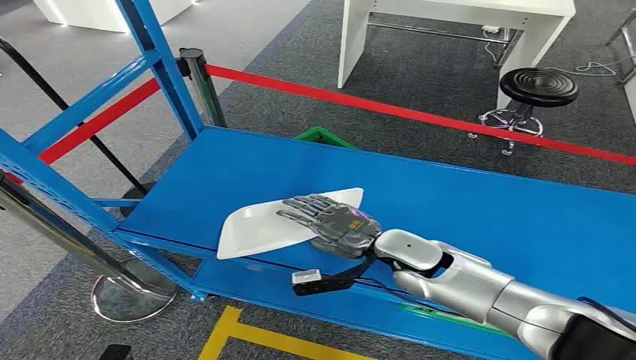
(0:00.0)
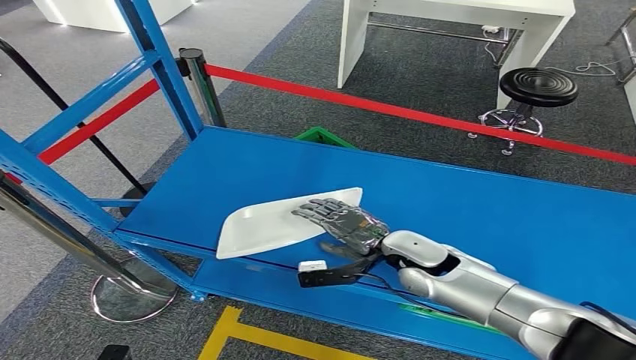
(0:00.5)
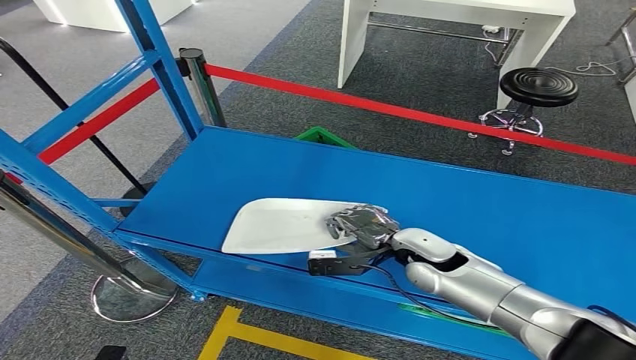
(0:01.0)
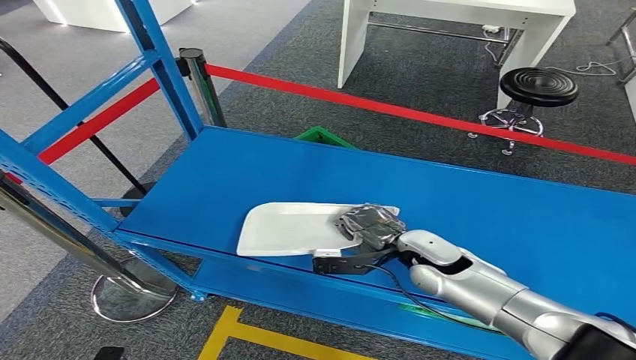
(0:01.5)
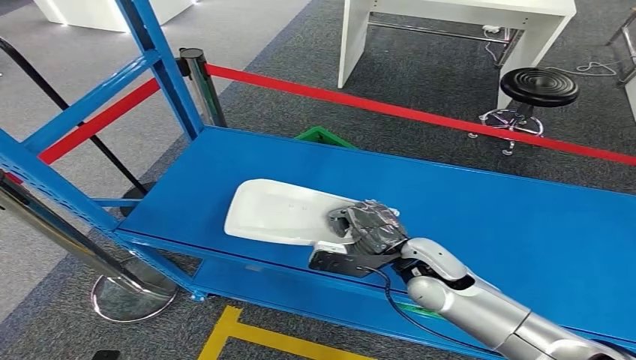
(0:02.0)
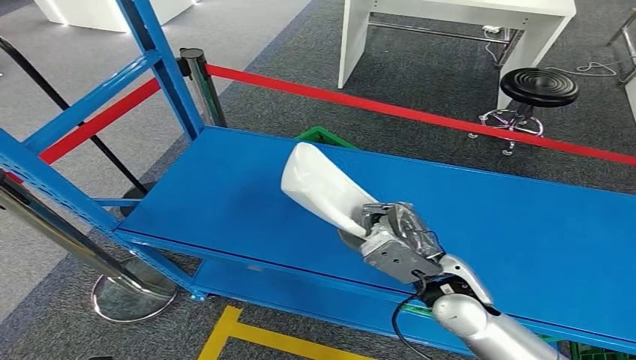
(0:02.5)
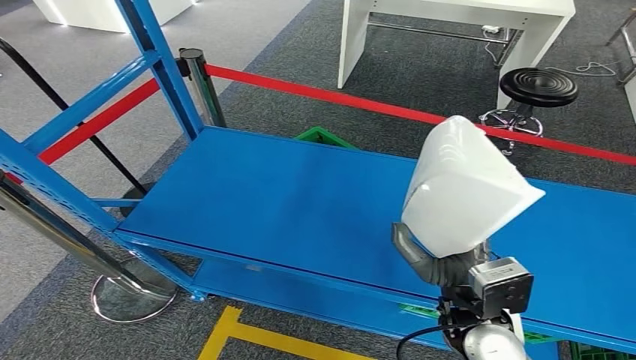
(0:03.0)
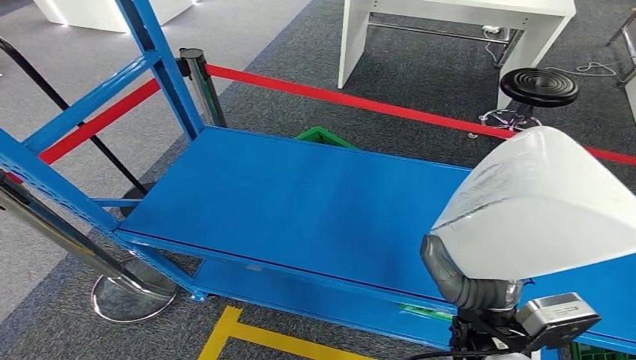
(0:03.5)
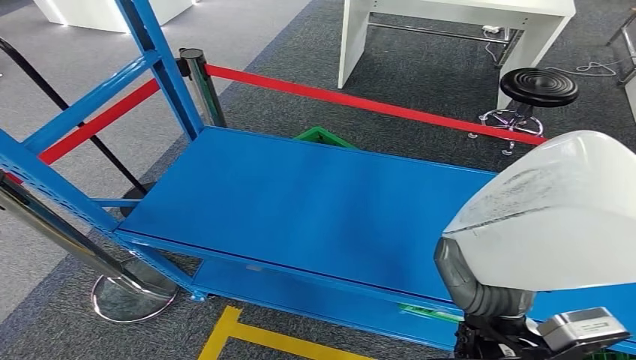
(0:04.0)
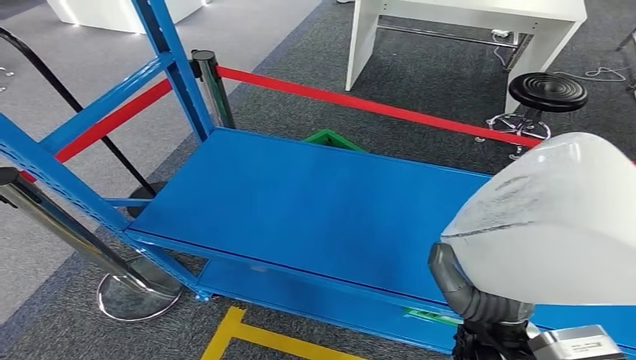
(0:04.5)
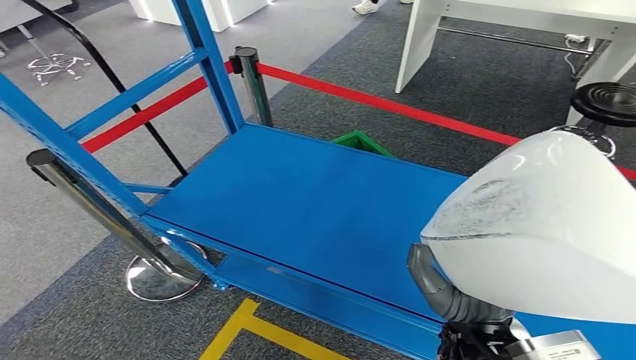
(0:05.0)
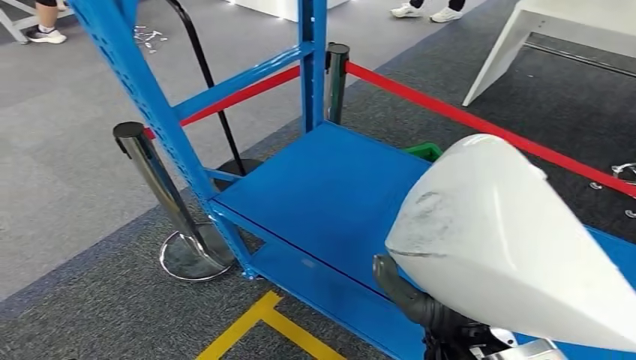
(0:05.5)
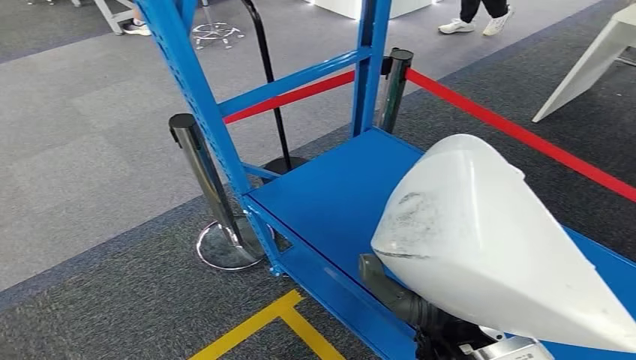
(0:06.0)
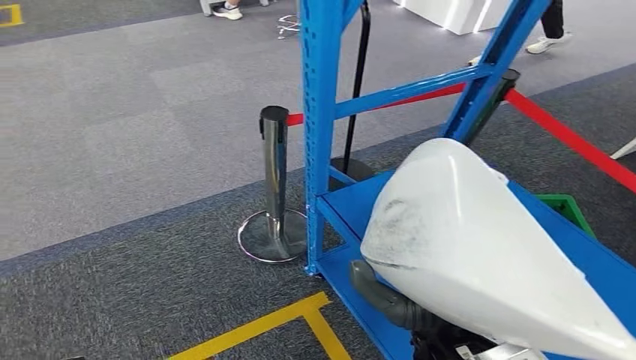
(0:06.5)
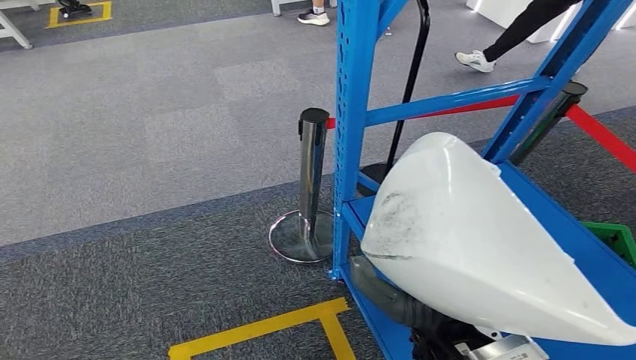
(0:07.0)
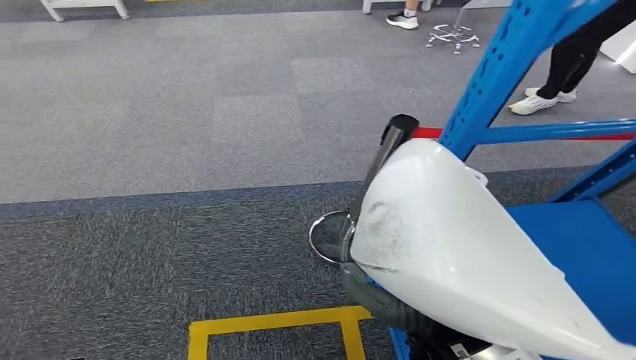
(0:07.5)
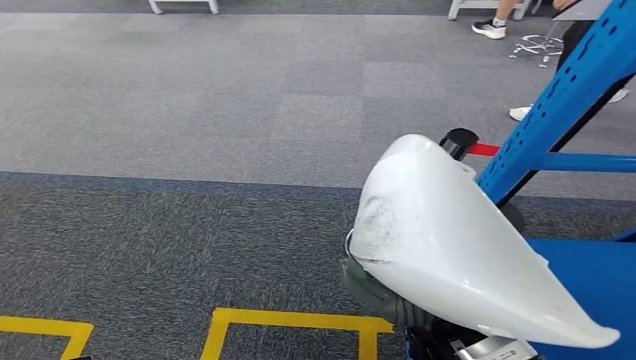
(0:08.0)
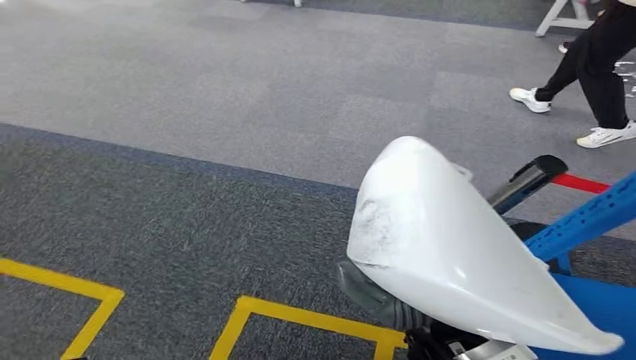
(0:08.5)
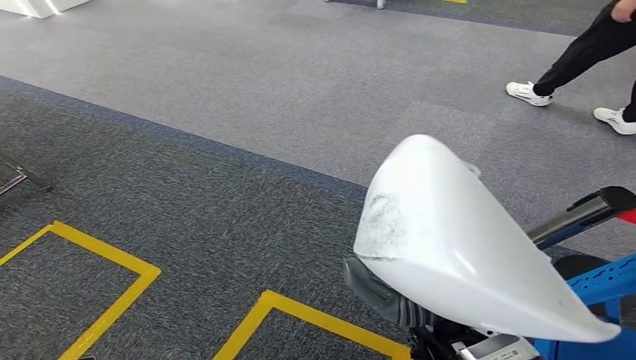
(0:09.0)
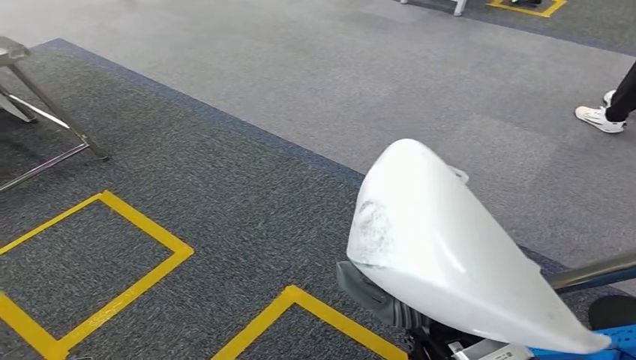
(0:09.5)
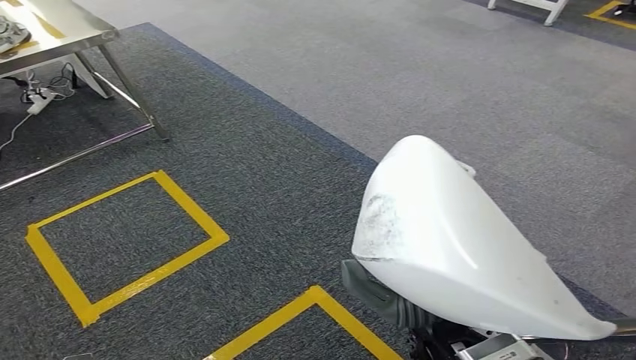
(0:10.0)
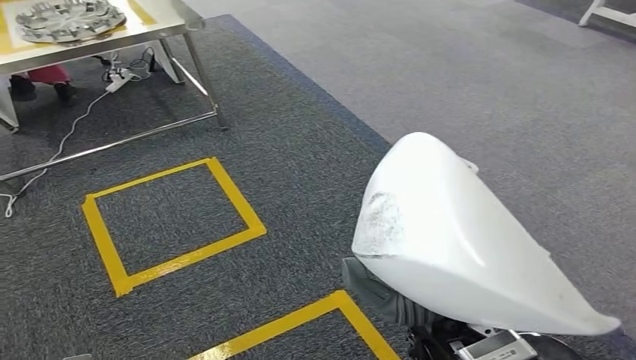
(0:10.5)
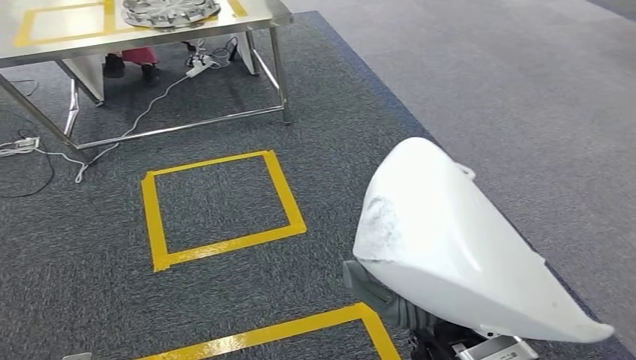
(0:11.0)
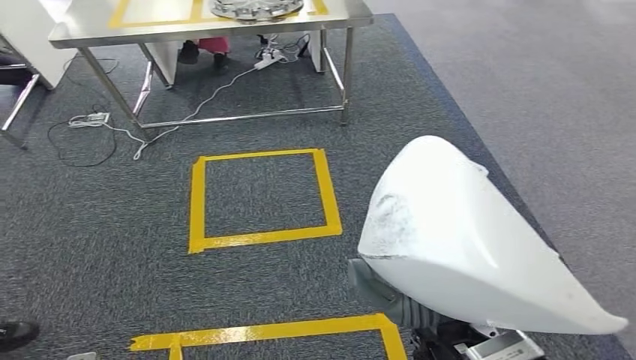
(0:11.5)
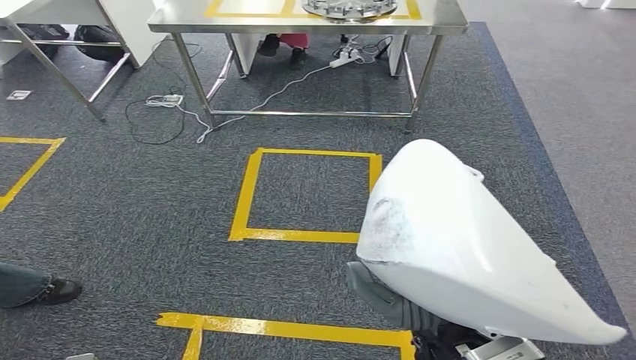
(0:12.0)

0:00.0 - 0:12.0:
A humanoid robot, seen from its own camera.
Step, 0:00.0 - 0:03.5: Pick up the small component from the shelf.

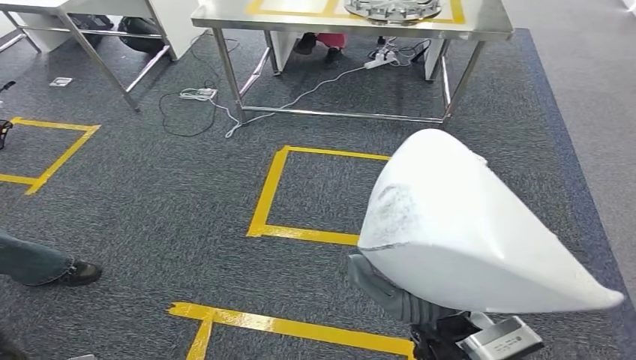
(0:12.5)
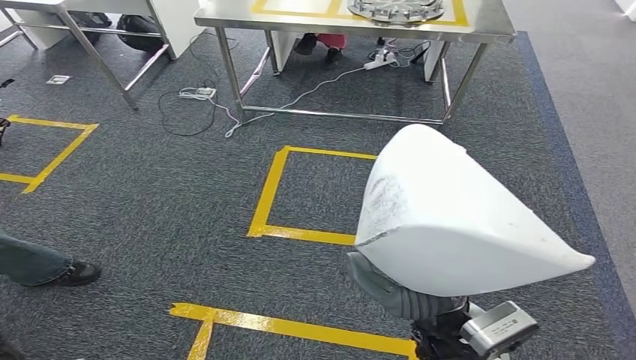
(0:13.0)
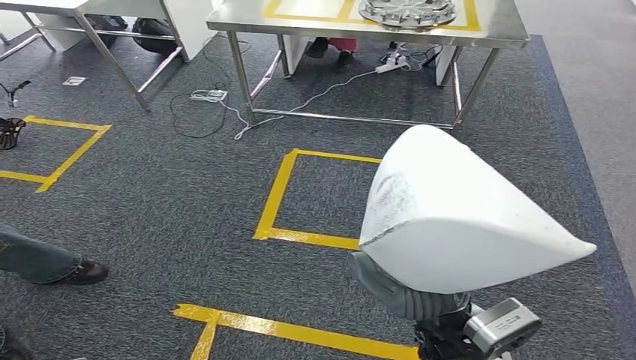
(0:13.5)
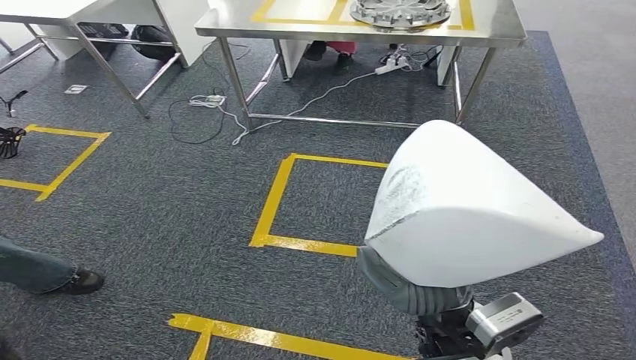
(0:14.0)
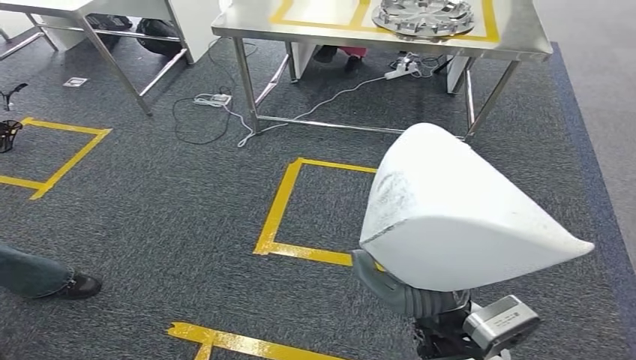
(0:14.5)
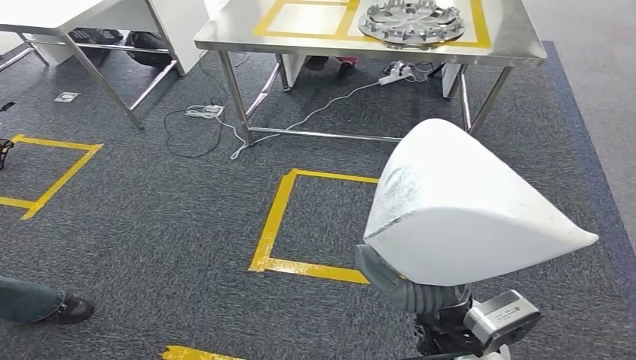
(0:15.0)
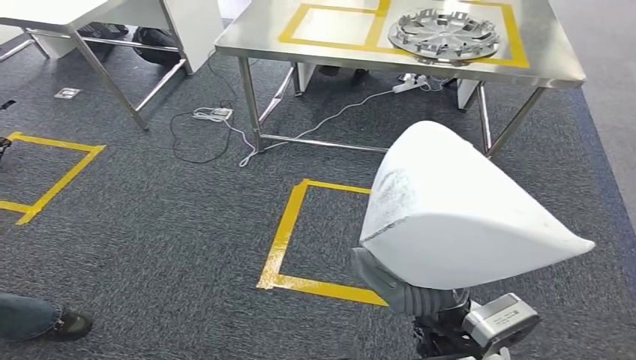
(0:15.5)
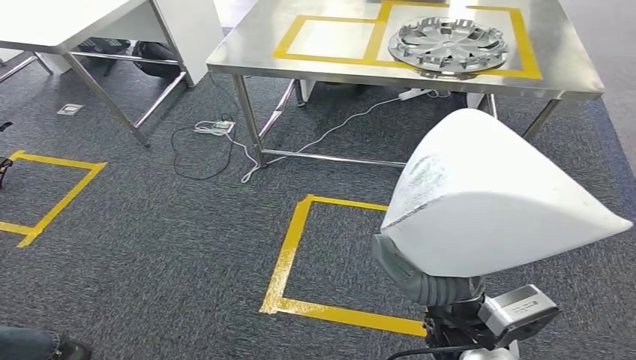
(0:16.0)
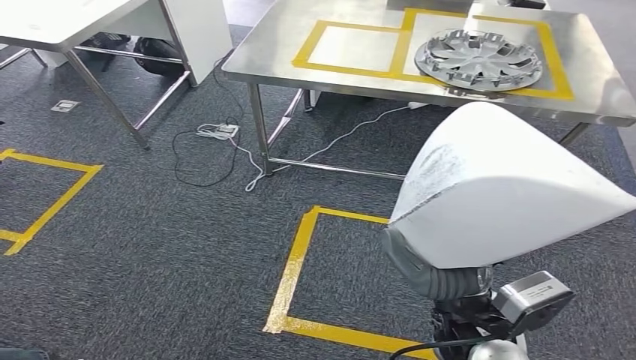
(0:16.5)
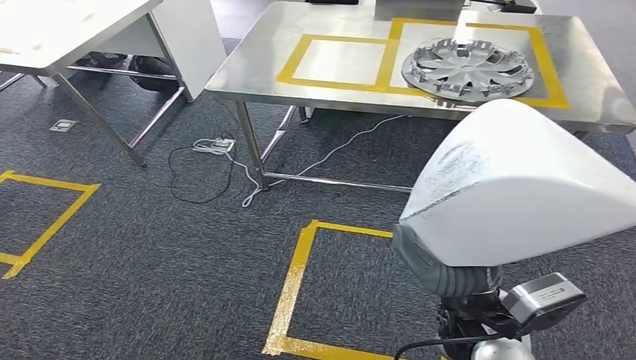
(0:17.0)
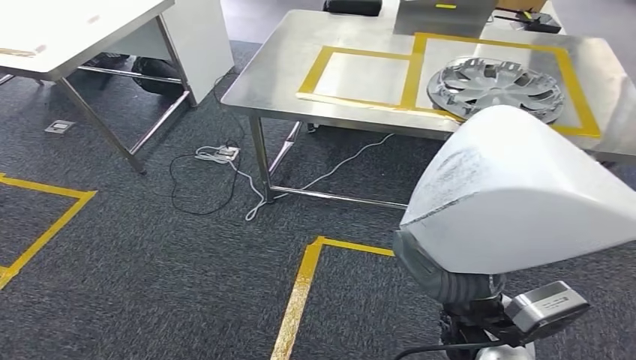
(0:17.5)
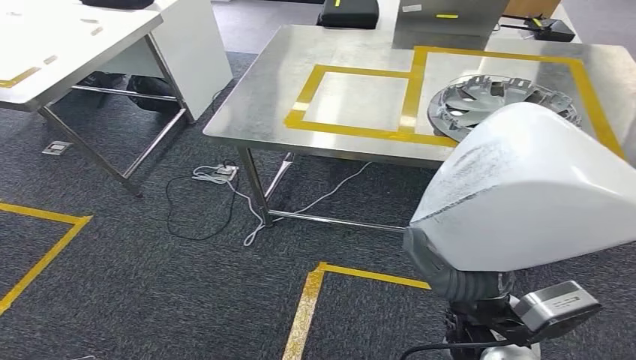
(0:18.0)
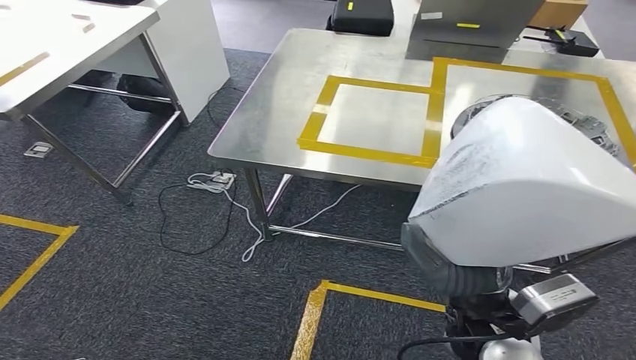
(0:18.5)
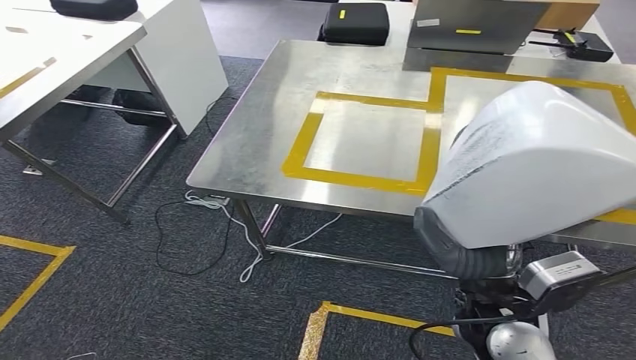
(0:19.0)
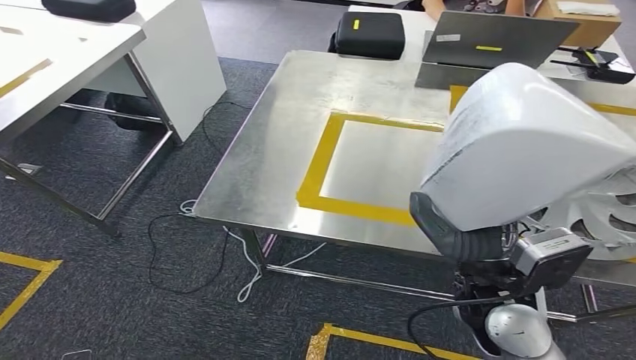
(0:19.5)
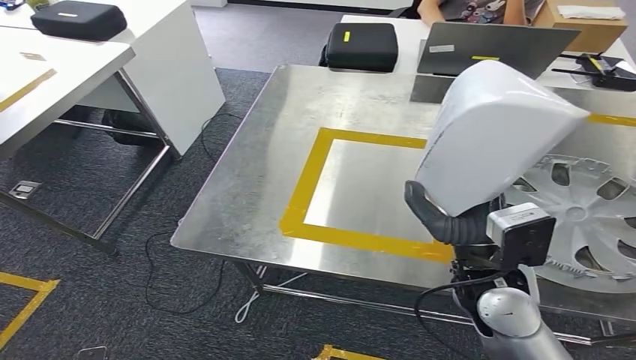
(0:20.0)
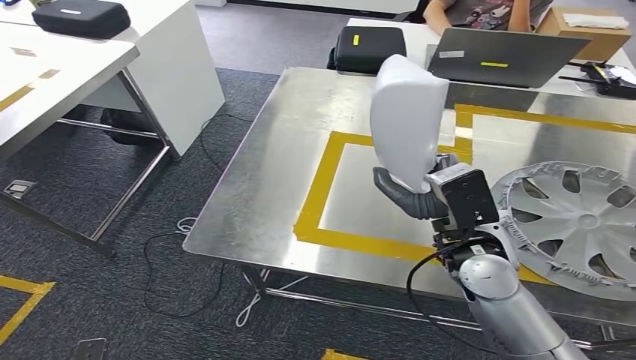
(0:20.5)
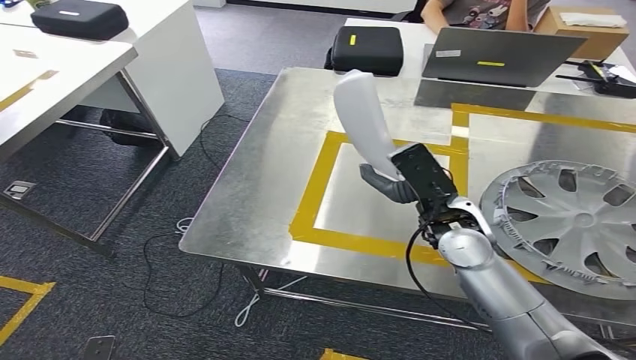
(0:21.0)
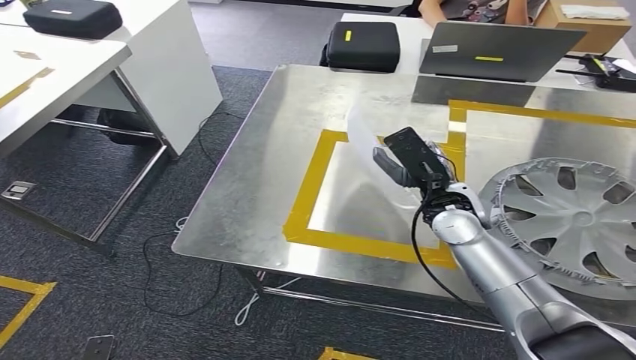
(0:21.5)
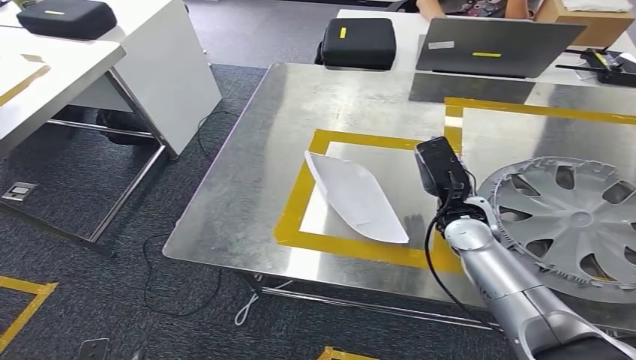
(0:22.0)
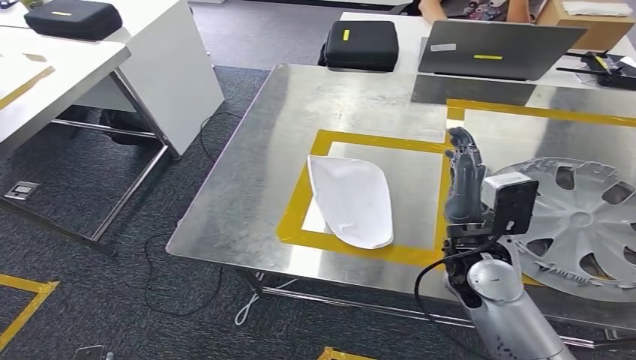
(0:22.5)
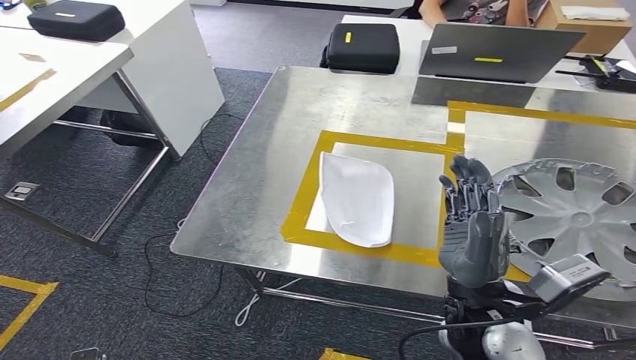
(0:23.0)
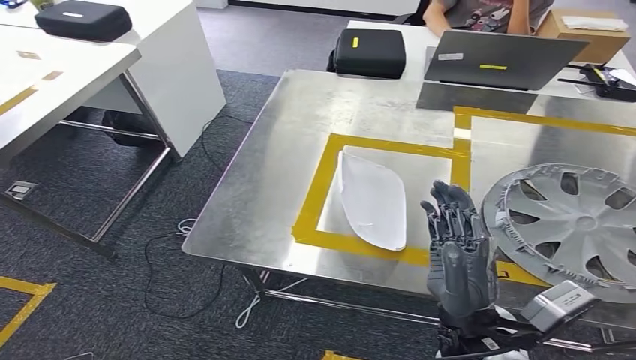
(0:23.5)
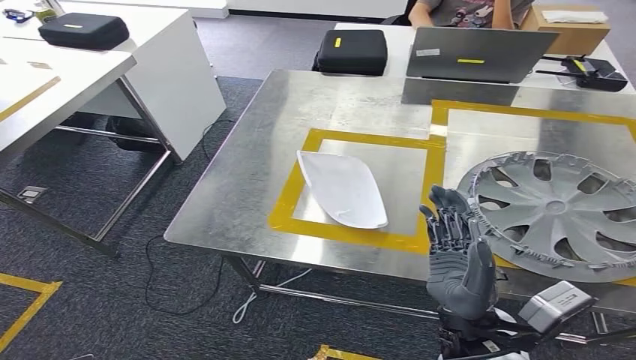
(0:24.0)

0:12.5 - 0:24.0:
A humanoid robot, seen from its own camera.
Step, 0:12.5 - 0:19.5: Move the small component to the workbench.
Step, 0:20.0 - 0:23.0: Insert the small component into the corresponding slot on the workbench.
